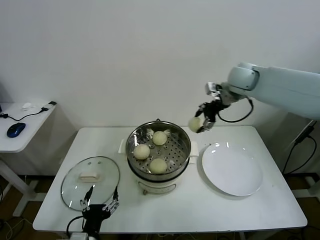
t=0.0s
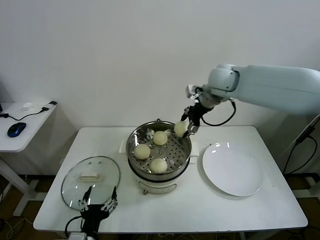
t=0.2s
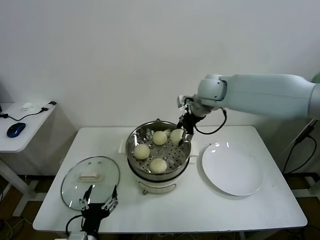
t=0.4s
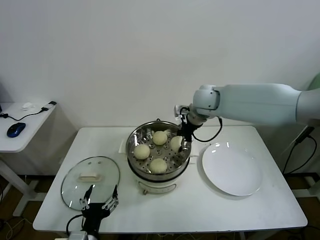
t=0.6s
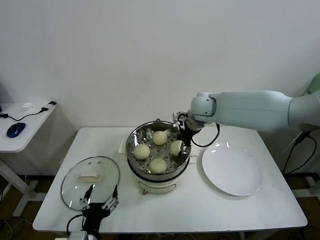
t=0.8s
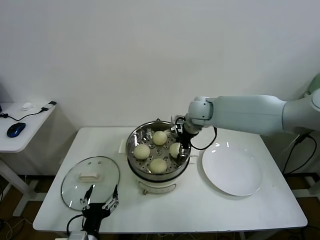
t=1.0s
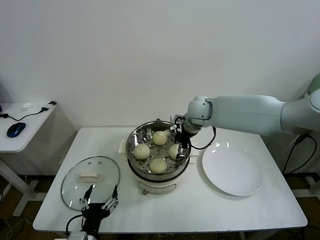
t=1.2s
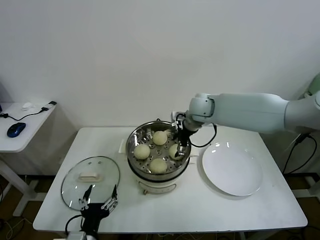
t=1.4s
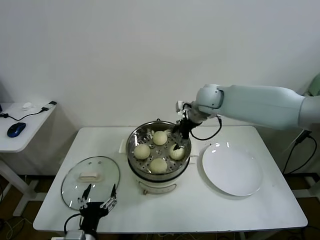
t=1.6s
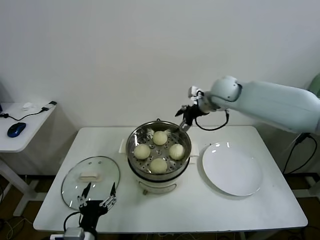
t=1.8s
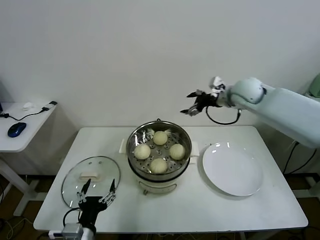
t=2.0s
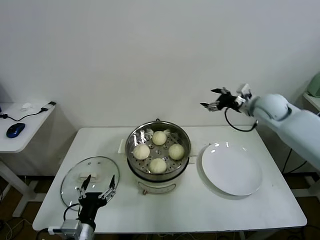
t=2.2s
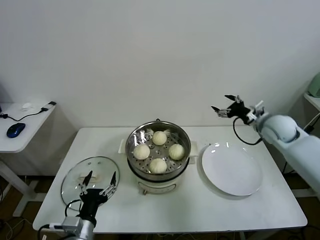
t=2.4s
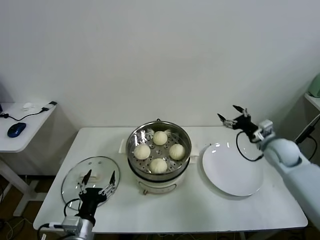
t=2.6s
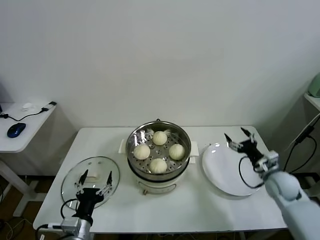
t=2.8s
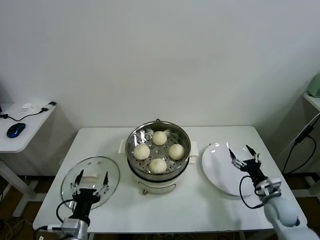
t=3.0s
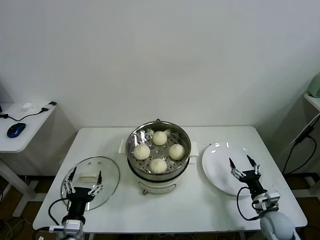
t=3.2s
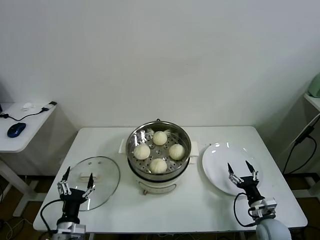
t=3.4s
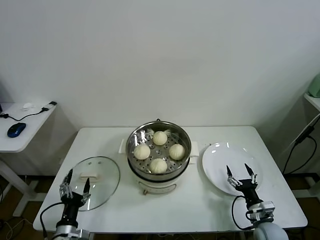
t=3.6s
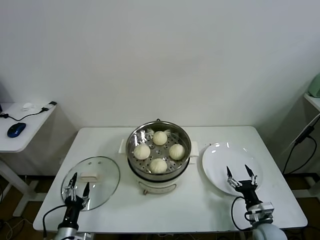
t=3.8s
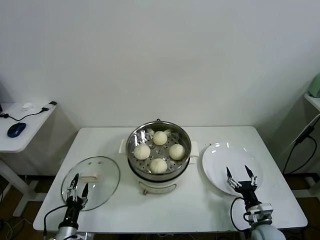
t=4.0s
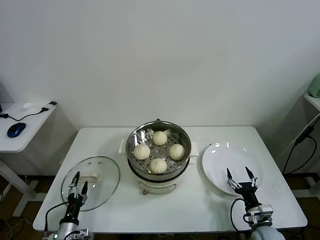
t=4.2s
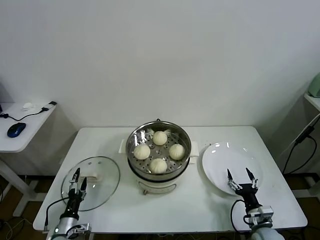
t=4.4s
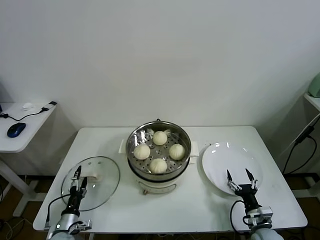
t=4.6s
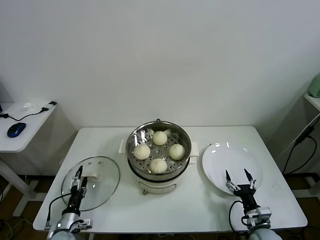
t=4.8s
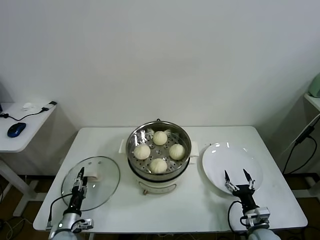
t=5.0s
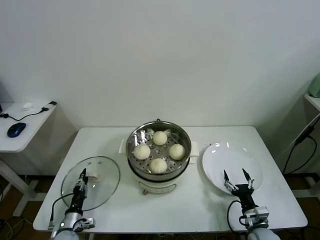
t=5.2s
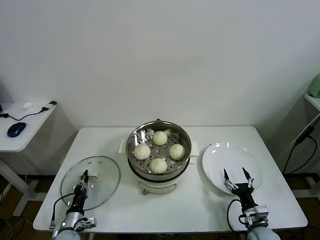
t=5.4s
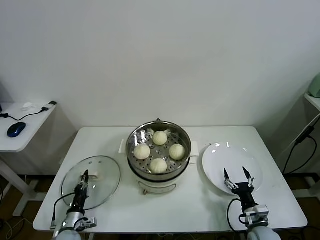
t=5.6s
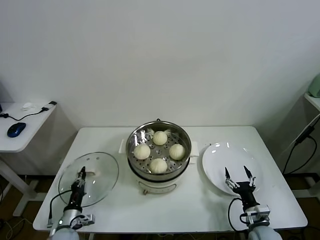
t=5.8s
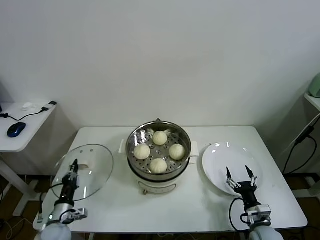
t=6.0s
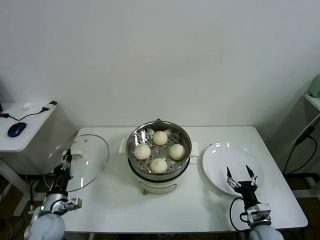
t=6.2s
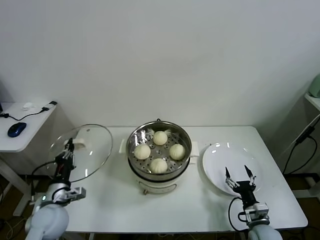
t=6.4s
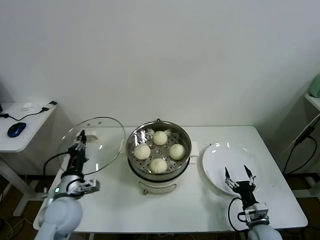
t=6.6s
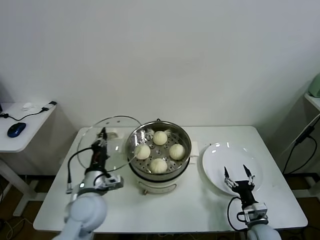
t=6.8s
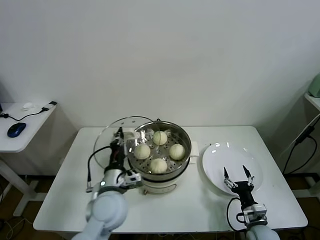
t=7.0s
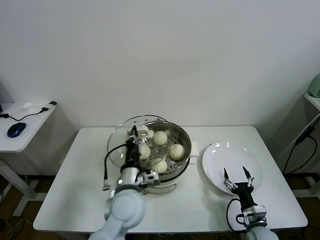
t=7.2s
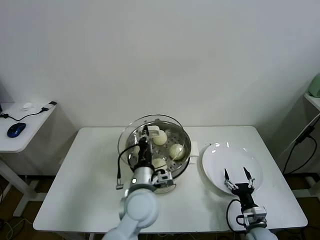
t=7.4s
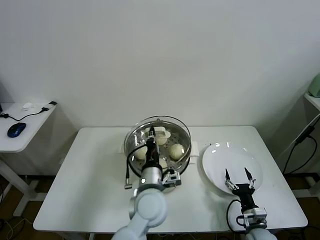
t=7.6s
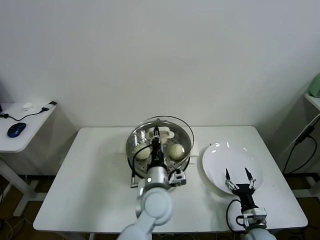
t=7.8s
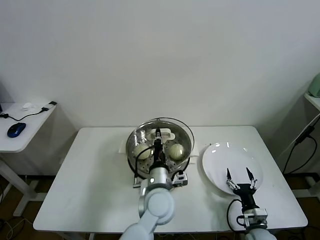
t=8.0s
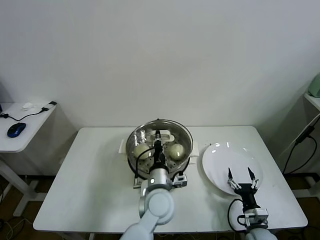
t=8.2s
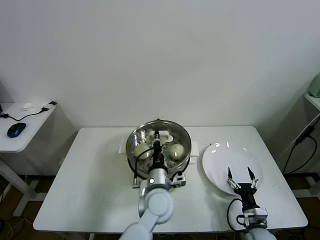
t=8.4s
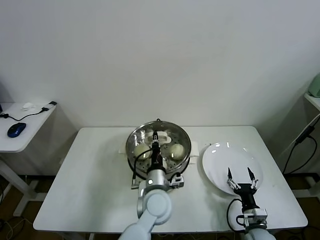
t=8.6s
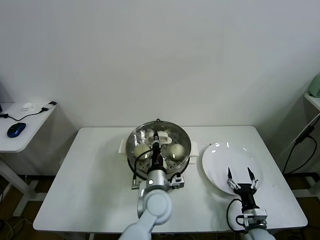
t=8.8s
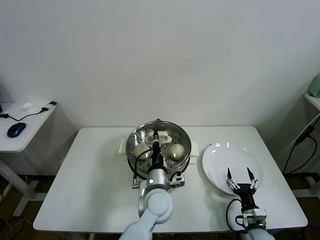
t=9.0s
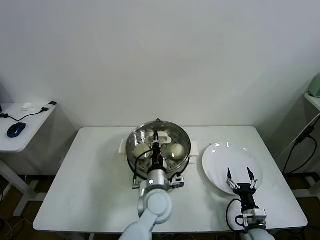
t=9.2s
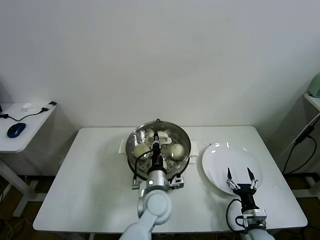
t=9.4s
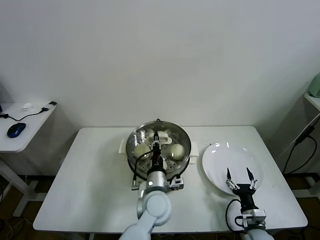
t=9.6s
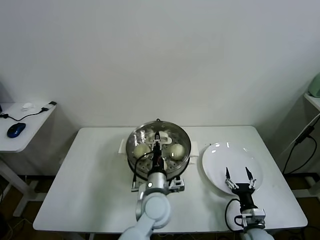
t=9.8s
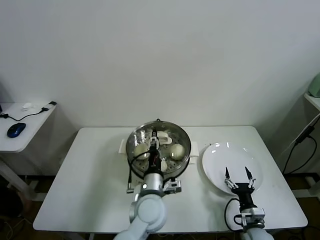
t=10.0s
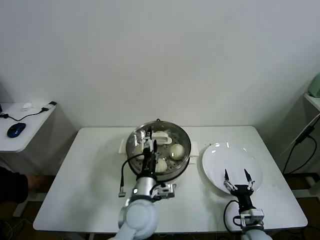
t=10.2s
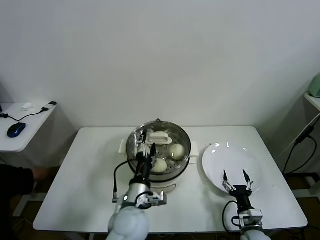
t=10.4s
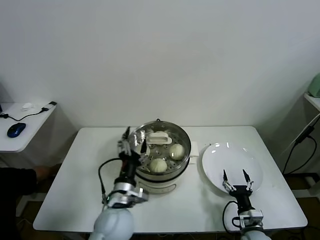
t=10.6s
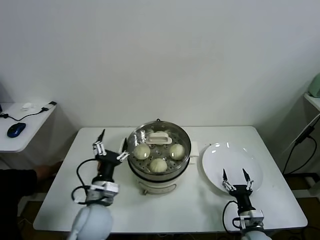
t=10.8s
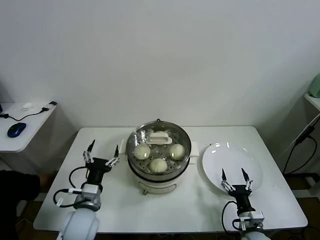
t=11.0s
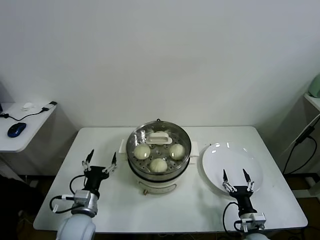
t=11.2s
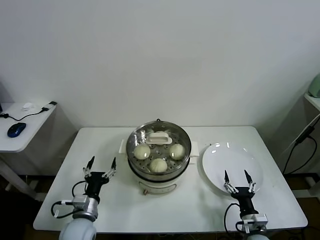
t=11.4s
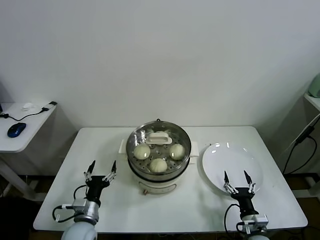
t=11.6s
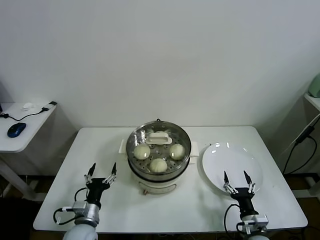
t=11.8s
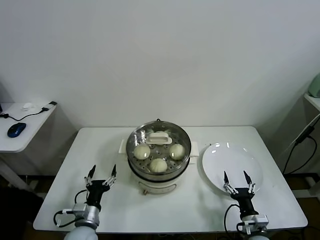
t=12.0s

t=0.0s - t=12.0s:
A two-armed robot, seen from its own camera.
Task of the whole recording: take steamed baozi put them in steamer.
Step, t=0.0s - t=1.4s: Place the baozi on the steamer with right gripper.
Step, t=1.6s - t=5.4s: Grasp the pot lid with left gripper.
Step, t=5.6s - t=10.2s: Place the pot lid on the steamer with left gripper.
t=0.0s - t=1.6s: The right gripper shifts about 10 cm to the left and downward, and opens up.
t=1.6s - t=3.0s: The right gripper goes some 50 cm downward, backward and to the right. The left gripper changes place by some 5 cm.
t=3.0s - t=4.4s: The right gripper moves backward, downward and to the left, some 10 cm. Meanwhile the left gripper heads downward and to the left, covering about 20 cm.
t=4.4s - t=6.0s: The left gripper heads upward, covering roughly 5 cm, and closes its fingers.
t=6.0s - t=7.6s: The left gripper travels to the right and upward by about 35 cm.
t=7.6s - t=9.0s: The left gripper shifts by some 5 cm.
t=9.0s - t=10.4s: The left gripper goes some 10 cm to the left and backward, and opens.
t=10.4s - t=12.0s: The left gripper shifts approximately 20 cm to the left and downward.

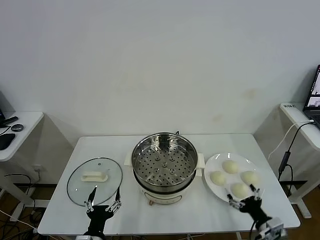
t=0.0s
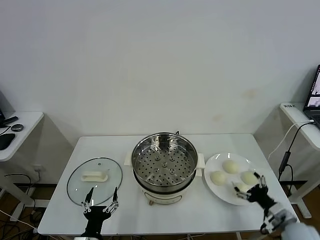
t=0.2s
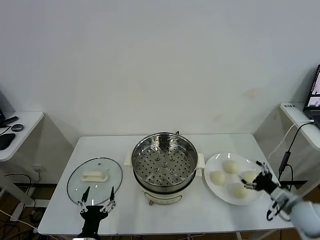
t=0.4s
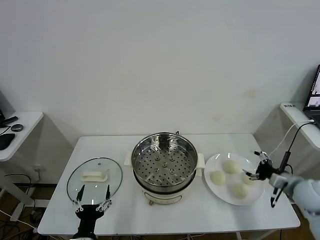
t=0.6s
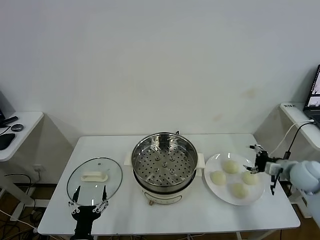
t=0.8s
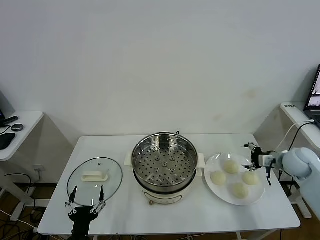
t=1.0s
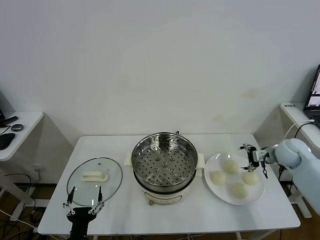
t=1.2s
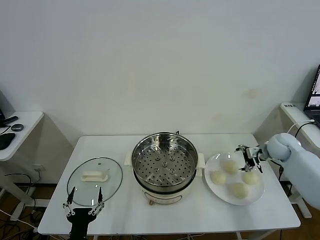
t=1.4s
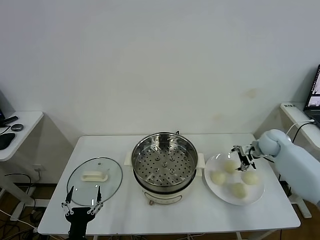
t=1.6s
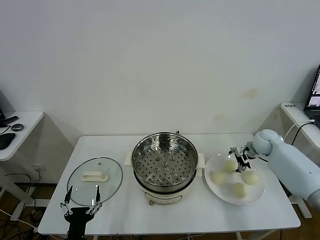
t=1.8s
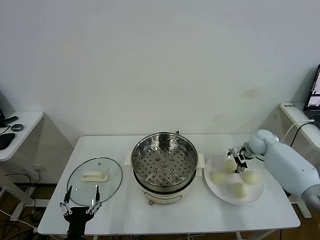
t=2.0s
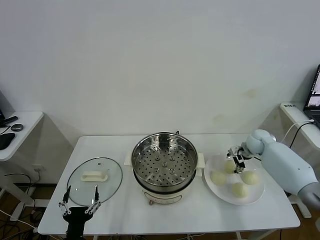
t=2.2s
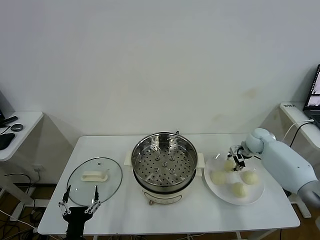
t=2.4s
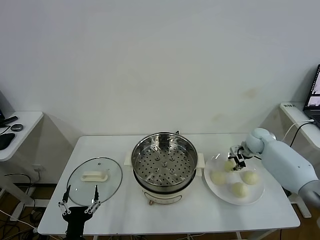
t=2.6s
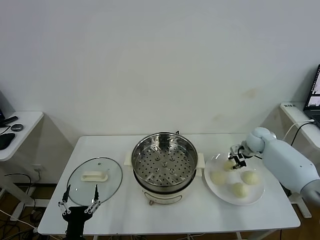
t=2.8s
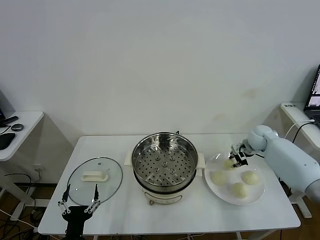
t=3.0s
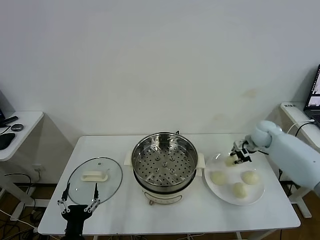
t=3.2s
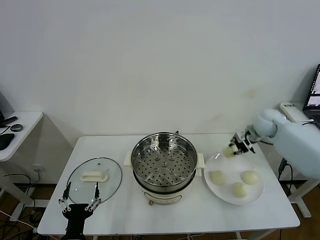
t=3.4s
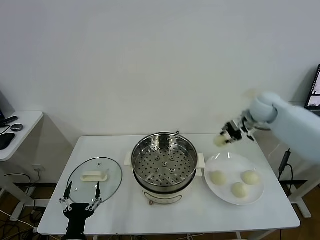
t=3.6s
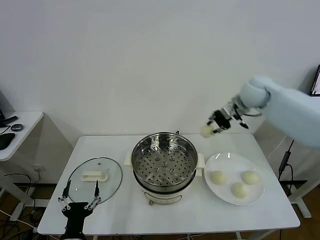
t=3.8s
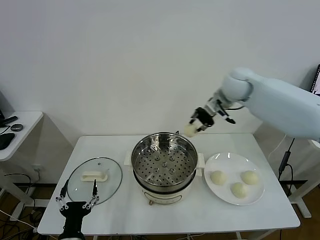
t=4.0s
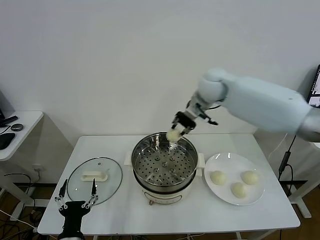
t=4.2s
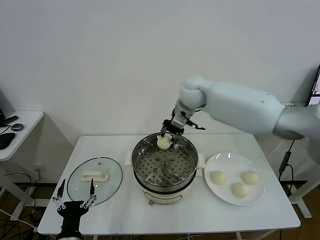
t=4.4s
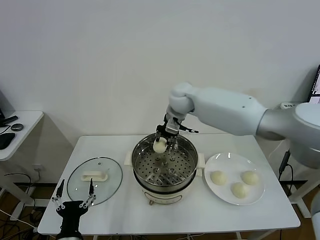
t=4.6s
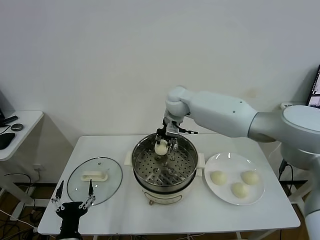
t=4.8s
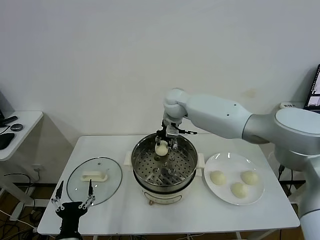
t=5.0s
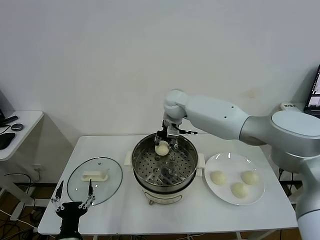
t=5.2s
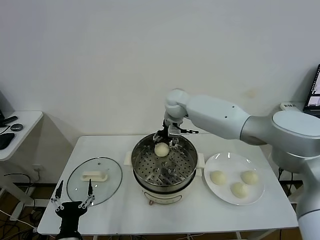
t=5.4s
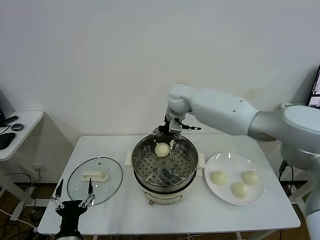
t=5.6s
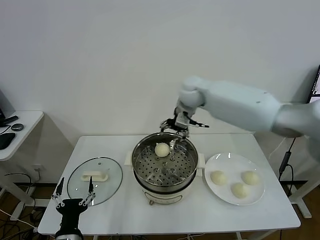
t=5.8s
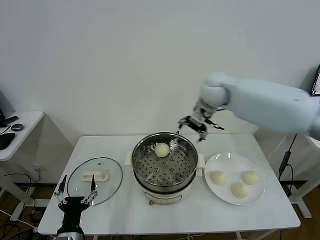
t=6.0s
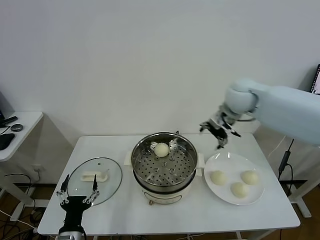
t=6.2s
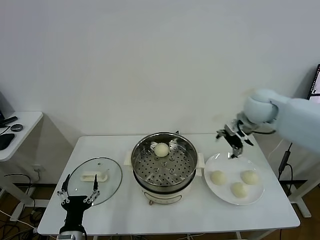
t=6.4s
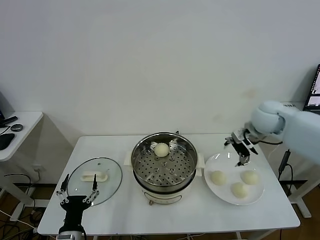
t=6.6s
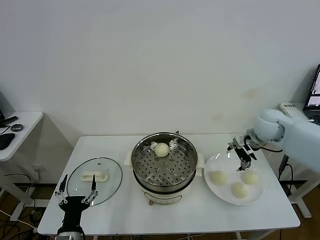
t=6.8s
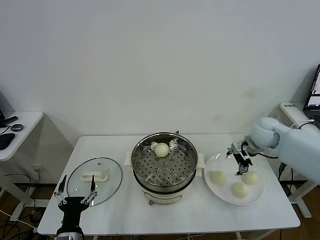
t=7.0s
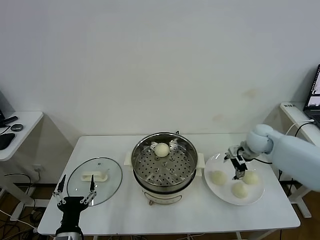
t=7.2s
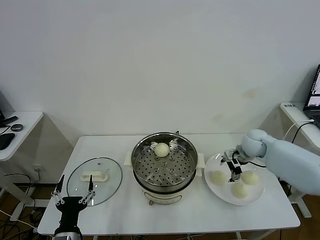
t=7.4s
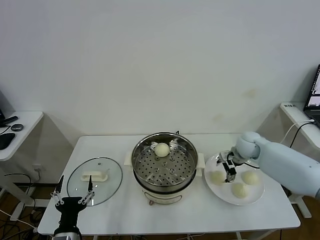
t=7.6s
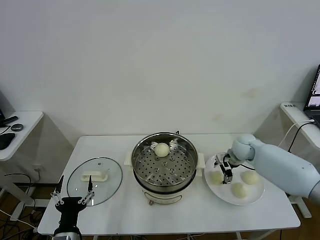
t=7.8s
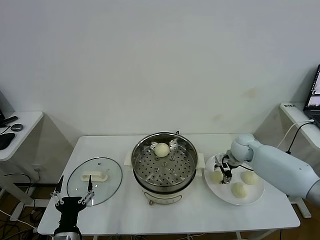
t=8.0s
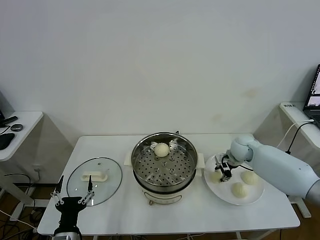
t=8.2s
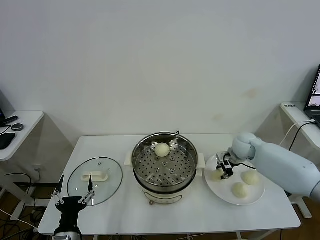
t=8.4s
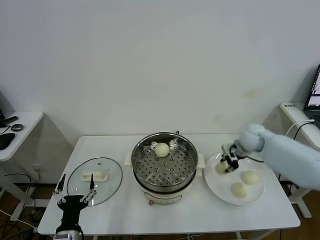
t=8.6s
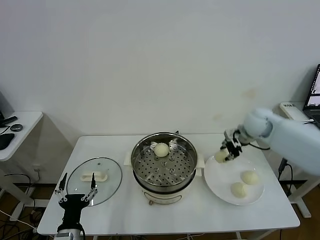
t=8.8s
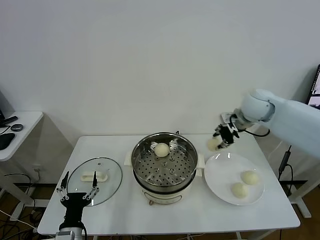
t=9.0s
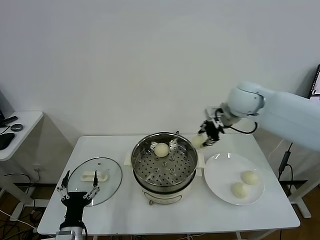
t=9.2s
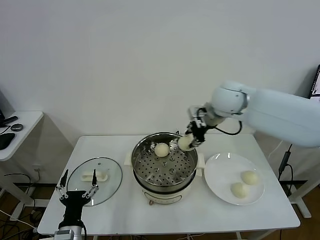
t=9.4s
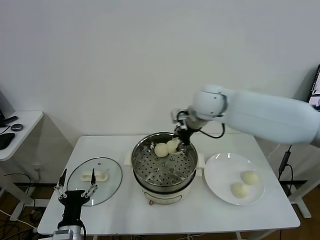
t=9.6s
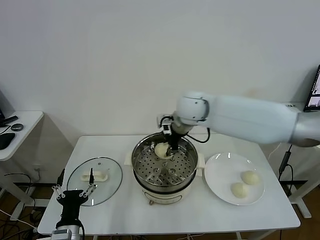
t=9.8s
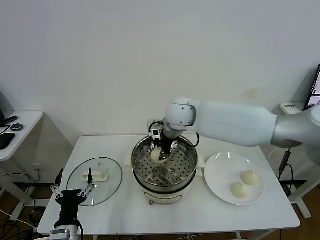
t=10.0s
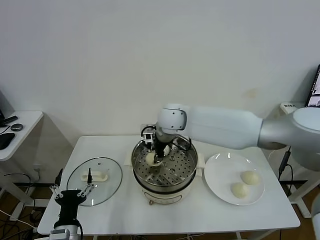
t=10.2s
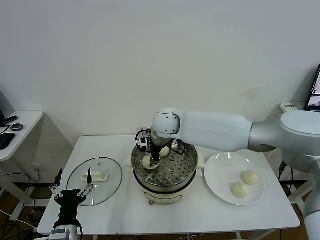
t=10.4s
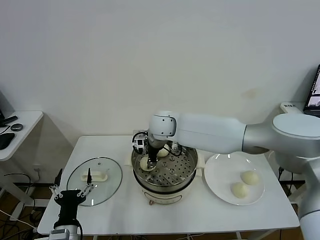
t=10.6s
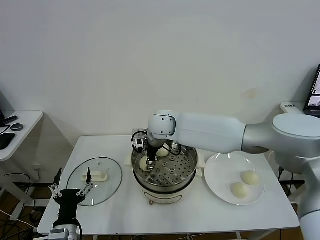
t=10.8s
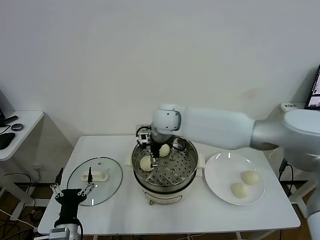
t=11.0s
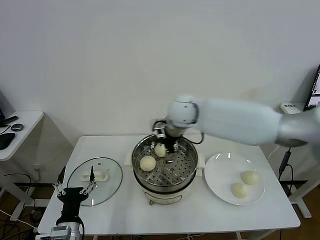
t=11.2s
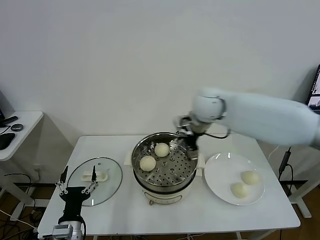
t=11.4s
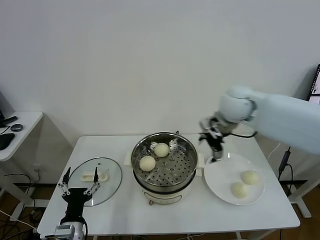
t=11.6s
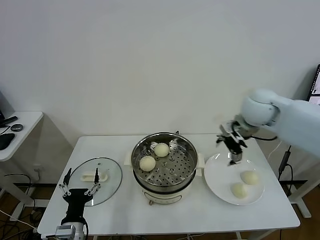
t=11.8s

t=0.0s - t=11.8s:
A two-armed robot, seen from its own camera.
Task of the whole recording: take steamed baozi put them in steamer.
Step, t=0.0s - t=2.4s: Grasp the baozi in the plate with right gripper.
Step, t=2.6s - t=5.4s: Place the baozi on the steamer with right gripper.
Step, t=5.6s - t=8.2s: Grasp the baozi in the plate with right gripper.
Step, t=8.4s - t=10.8s: Place the baozi on the steamer with right gripper.
t=1.4s - t=3.0s: The right gripper moves some 5 cm, and closes its fingers.
t=3.0s - t=4.4s: The right gripper heads to the left and upward, covering about 35 cm.
t=4.4s - t=6.0s: The right gripper is displaced to the right by some 15 cm, and opens.
t=6.0s - t=7.4s: The right gripper heads downward and to the right, covering about 25 cm.
t=7.4s - t=8.8s: The right gripper moves upward, approximately 15 cm, and closes its fingers.
t=8.8s - t=10.4s: The right gripper shifts some 30 cm to the left.
t=10.4s - t=11.8s: The right gripper moves to the right, roughly 30 cm, and opens.
